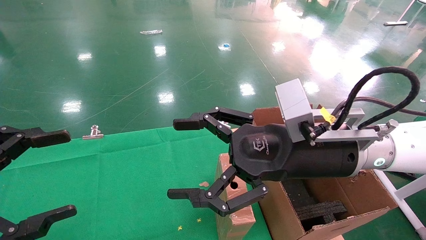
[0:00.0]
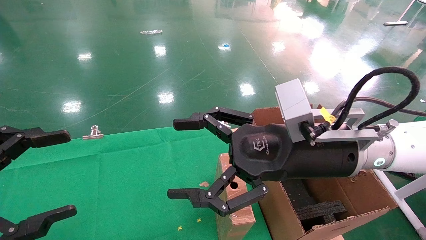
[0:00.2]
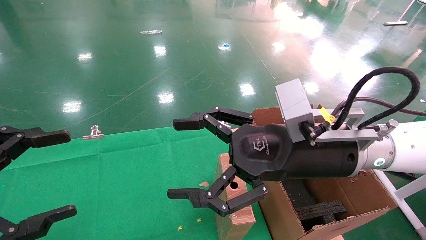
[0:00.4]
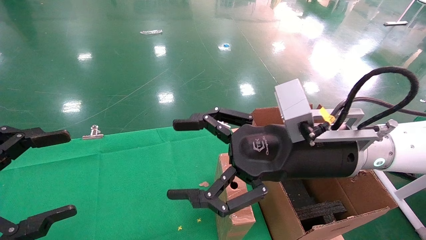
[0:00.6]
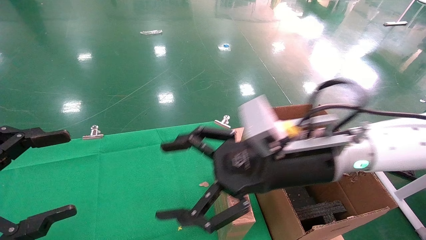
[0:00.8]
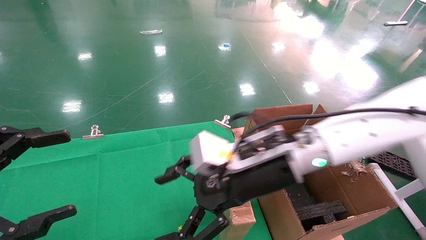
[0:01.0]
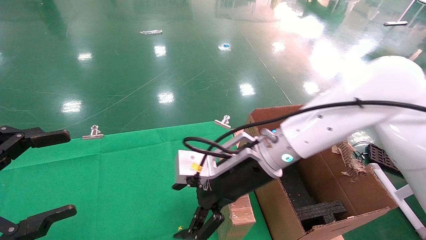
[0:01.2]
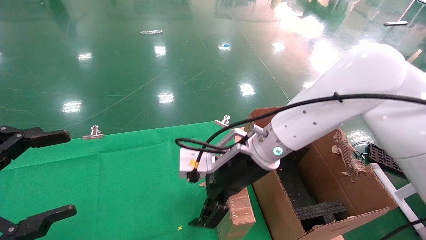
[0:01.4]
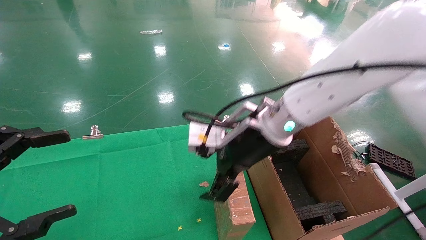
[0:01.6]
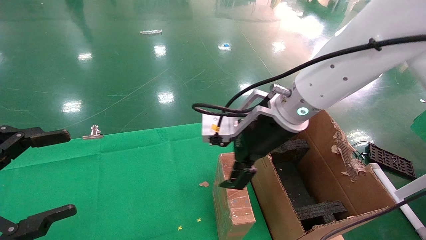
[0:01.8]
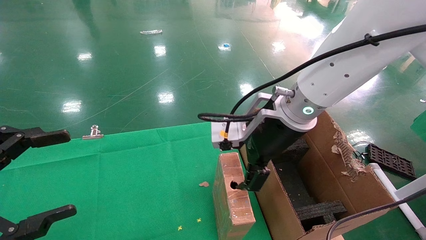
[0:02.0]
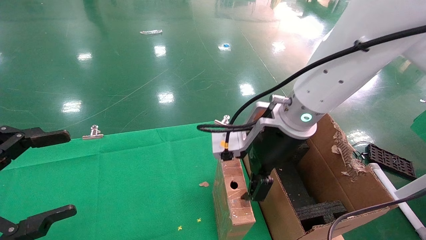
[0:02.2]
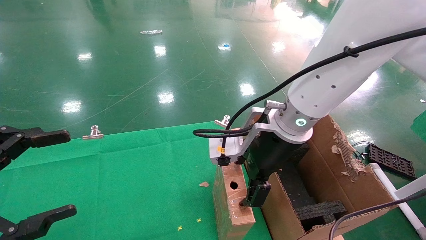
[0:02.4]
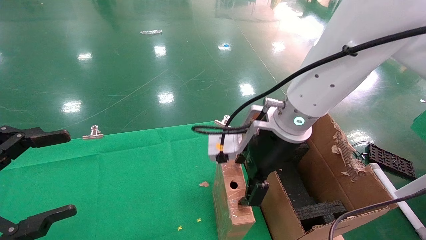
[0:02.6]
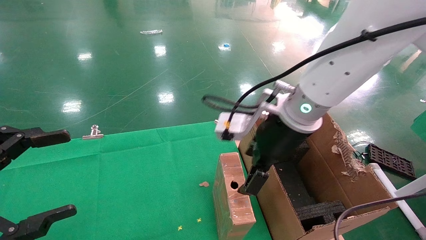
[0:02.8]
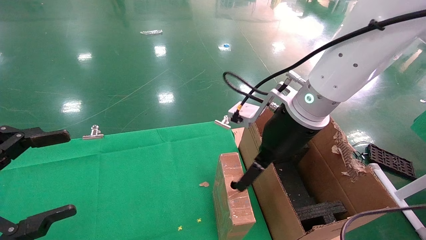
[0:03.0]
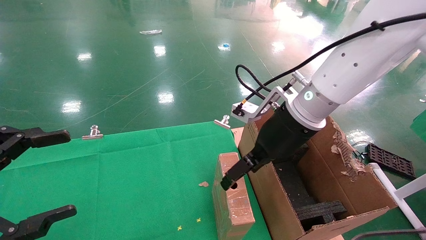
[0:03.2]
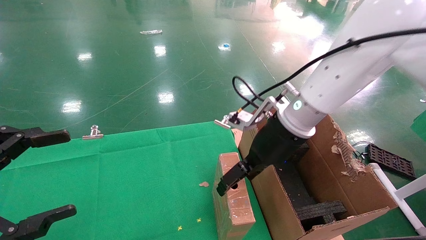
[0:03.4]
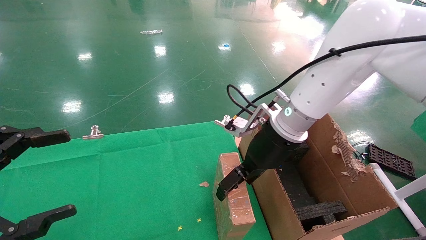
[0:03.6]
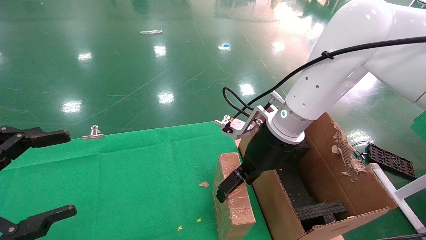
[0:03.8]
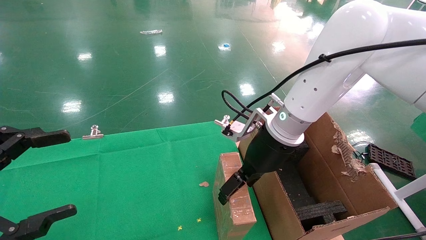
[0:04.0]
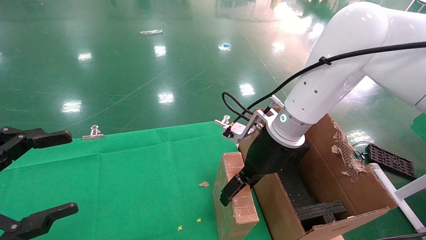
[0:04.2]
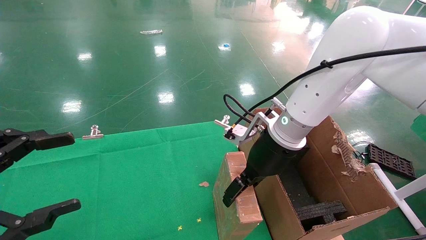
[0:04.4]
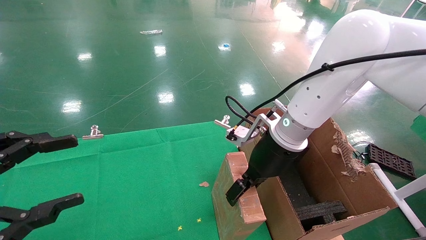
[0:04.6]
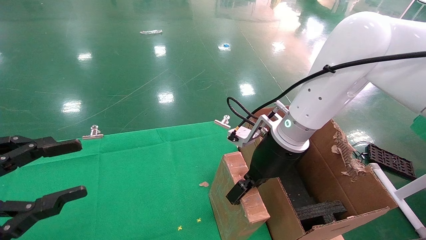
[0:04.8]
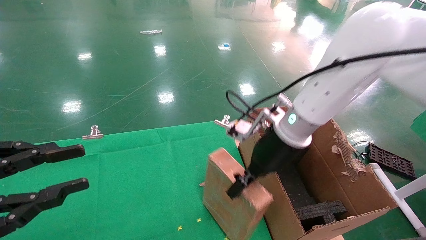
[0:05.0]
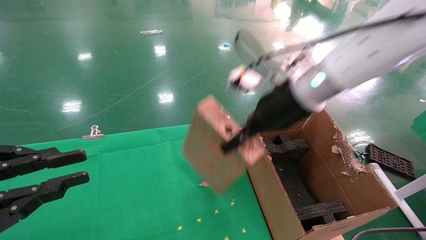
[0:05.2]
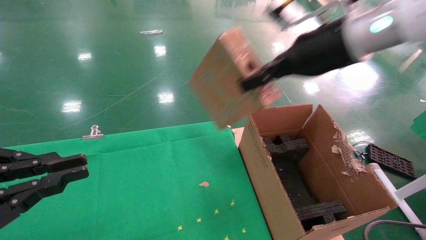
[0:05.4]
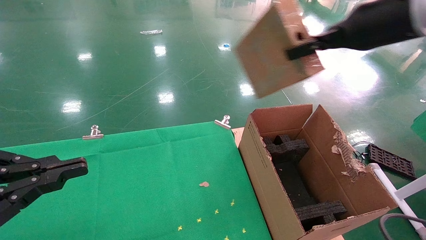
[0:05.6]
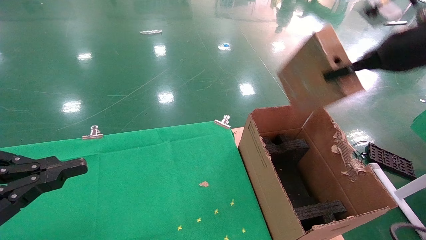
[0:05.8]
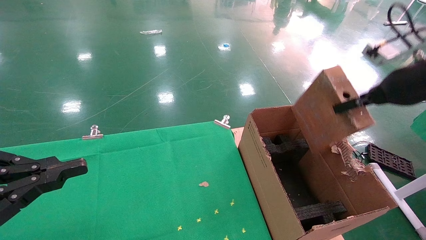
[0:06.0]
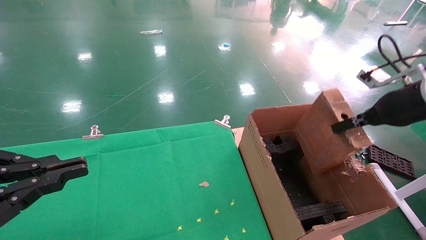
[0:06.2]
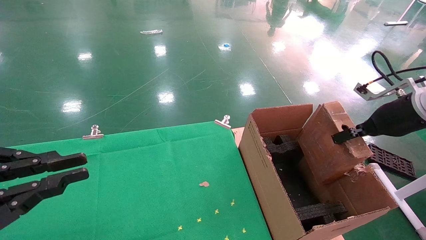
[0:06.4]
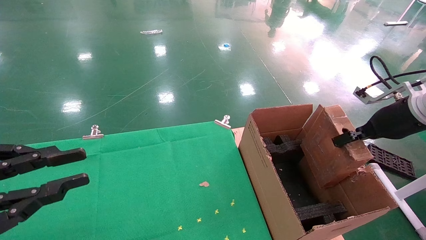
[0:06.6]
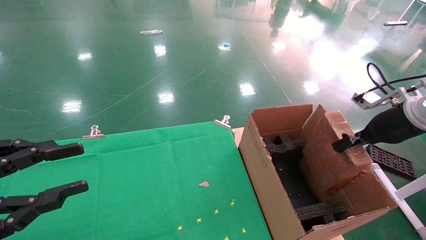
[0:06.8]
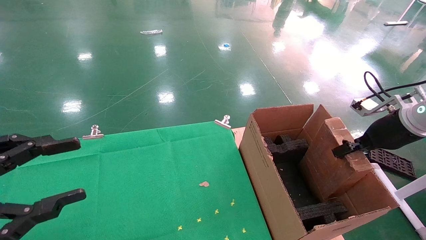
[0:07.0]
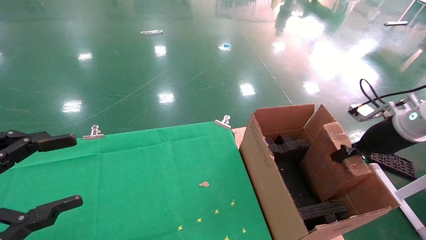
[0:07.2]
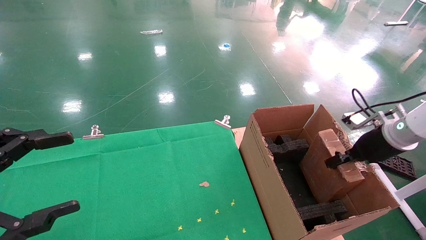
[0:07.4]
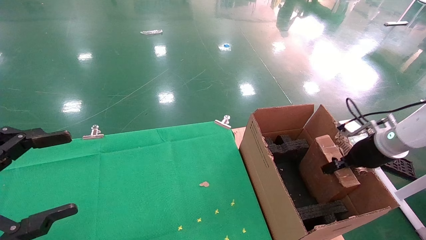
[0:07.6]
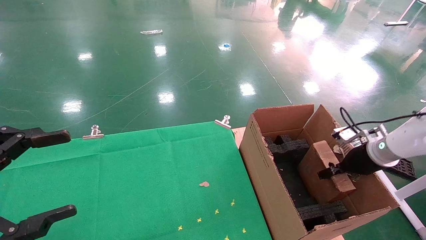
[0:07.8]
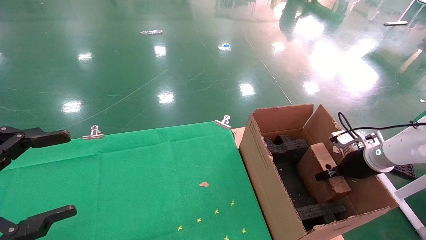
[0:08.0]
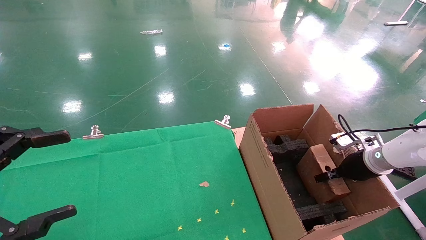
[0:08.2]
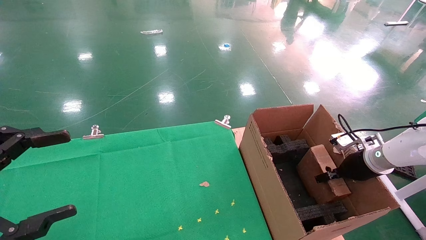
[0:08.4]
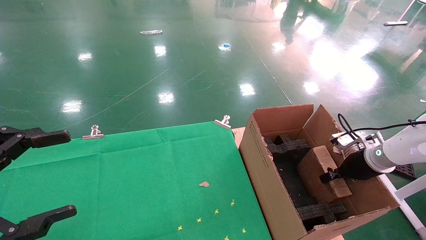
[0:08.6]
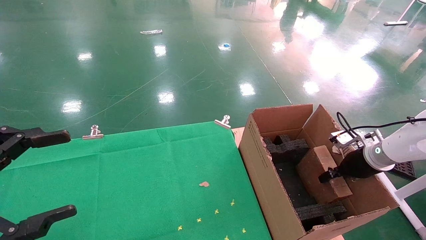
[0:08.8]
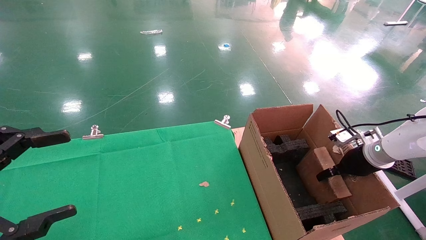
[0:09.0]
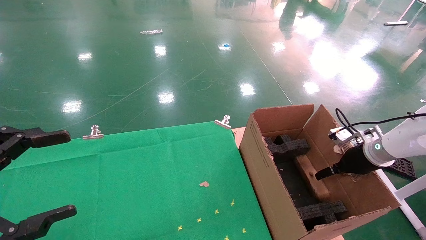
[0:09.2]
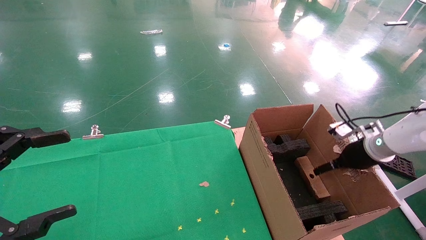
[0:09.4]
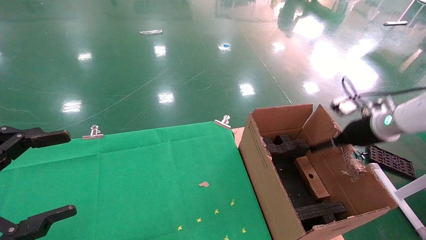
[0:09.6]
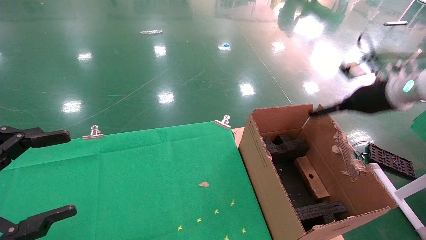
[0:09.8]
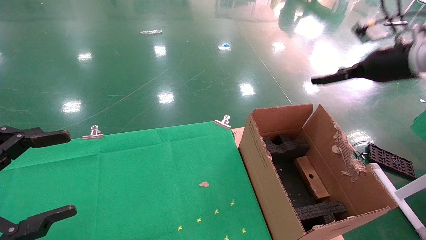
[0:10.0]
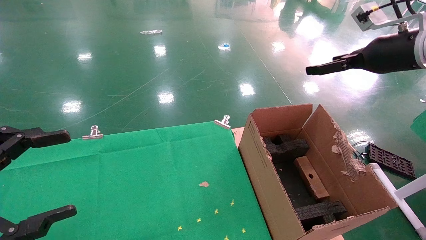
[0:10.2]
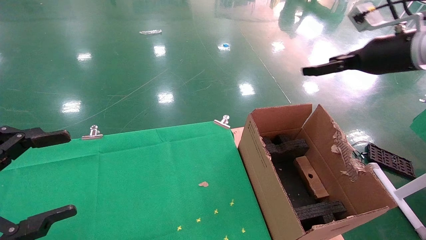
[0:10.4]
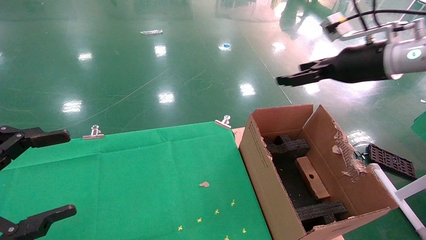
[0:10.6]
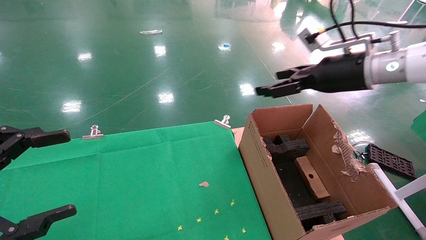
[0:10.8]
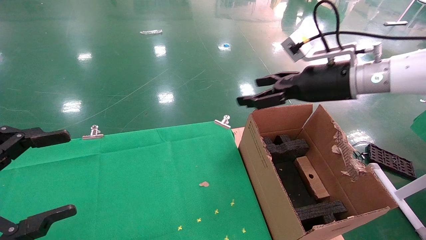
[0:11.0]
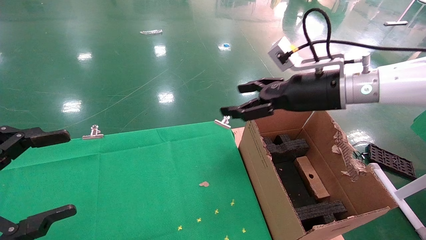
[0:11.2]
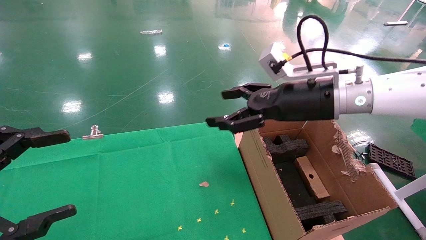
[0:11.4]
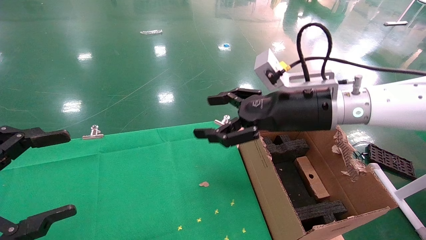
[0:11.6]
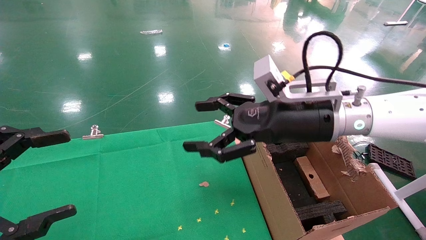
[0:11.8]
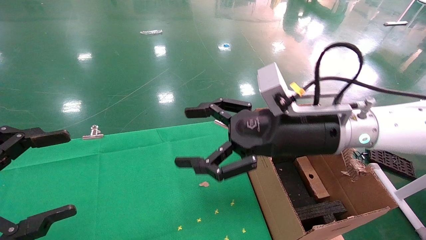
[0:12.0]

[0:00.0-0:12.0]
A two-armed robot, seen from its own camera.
Task of the whole recording: using a robotic arm to pick up a cardboard box and palace it the carton.
Step, 0:01.0 to 0:04.8: Pick up the mouse and the power cord paper box.
Step, 0:05.0 to 0:09.8: Place the mouse and the power cord paper box into the container.
0:00.0 to 0:01.6: The right gripper goes roughly 10 cm forward and to the left.
0:03.0 to 0:04.4: The right gripper travels downward by about 5 cm.
0:04.4 to 0:06.0: The right gripper goes about 25 cm to the right and upward, and closes up; the left gripper closes up.
0:06.0 to 0:07.6: The left gripper opens its fingers; the right gripper travels downward by roughly 20 cm.
0:07.6 to 0:09.0: The right gripper opens up.
0:09.0 to 0:10.4: The right gripper heads upward, covering roughly 25 cm, and opens its fingers.
0:10.4 to 0:12.0: The right gripper goes some 20 cm to the left and downward.

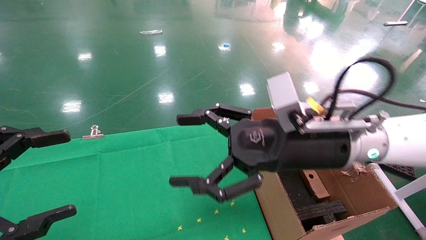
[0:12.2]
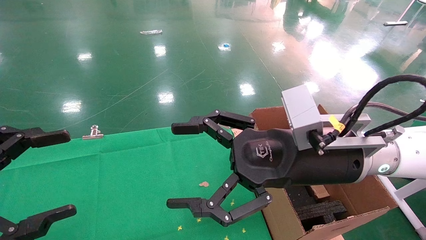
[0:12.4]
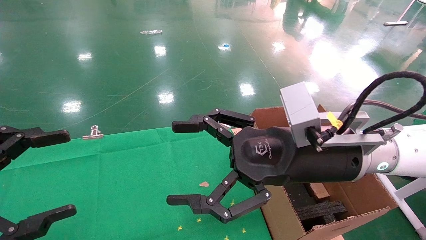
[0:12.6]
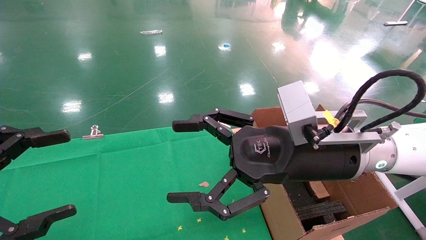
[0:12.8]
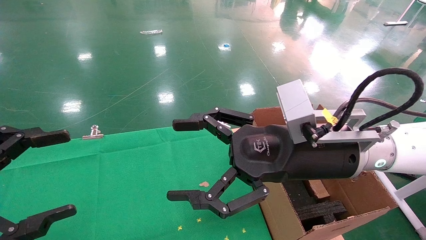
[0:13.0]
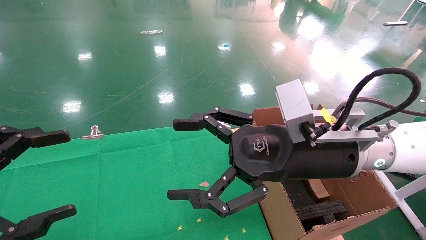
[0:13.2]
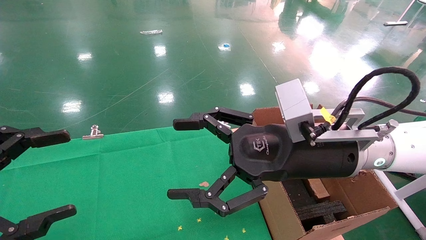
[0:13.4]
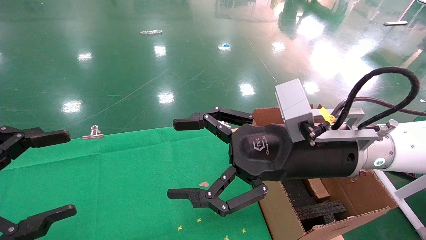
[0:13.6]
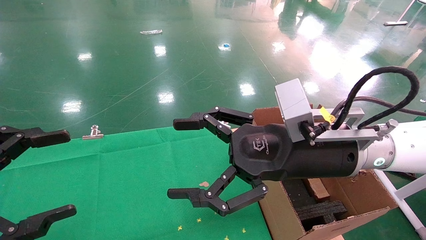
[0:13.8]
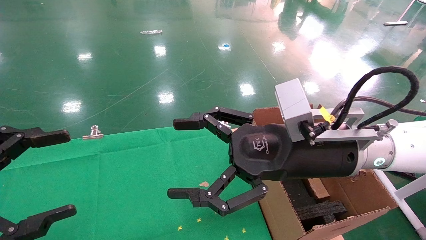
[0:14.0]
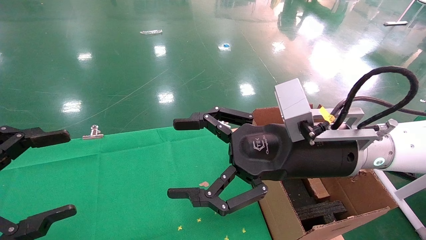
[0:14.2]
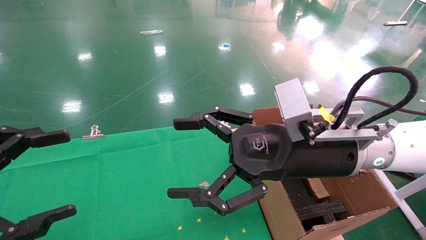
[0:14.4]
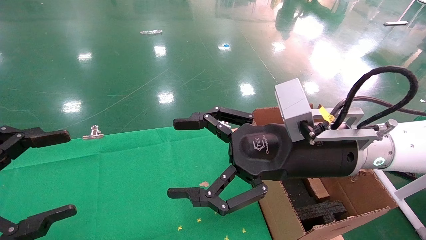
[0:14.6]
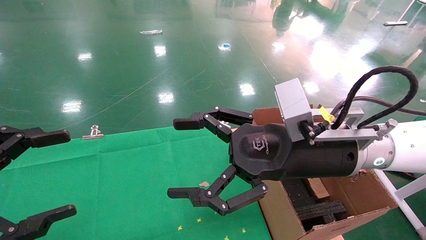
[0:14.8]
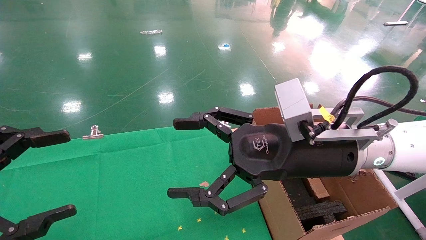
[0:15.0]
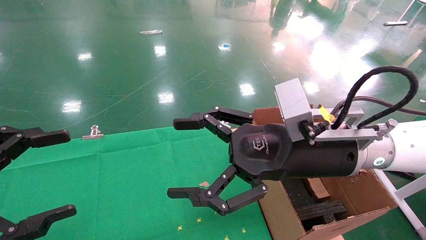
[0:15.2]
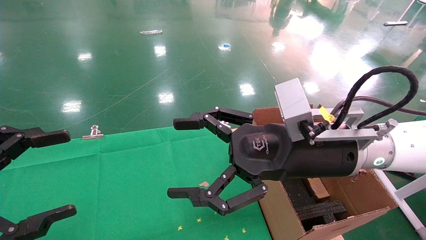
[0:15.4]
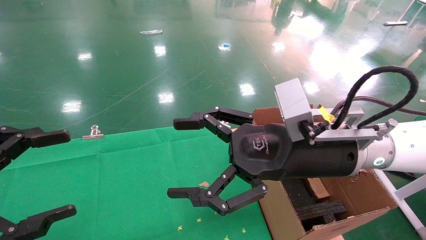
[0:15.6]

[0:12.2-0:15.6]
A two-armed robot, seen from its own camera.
Task of the whole recording: using a robotic arm to pick up a cardboard box and palace it the carton.
0:12.2 to 0:13.8: The grippers make only small movements.
0:13.8 to 0:15.6: The two grippers keep their place.
